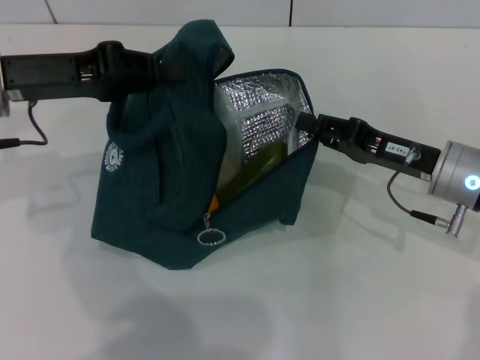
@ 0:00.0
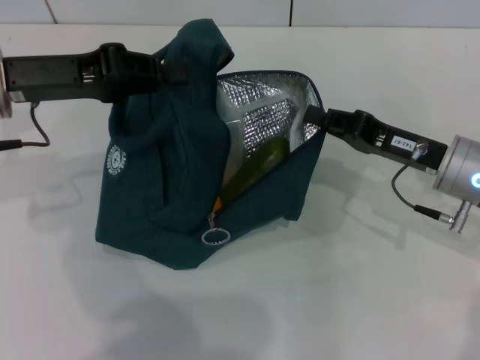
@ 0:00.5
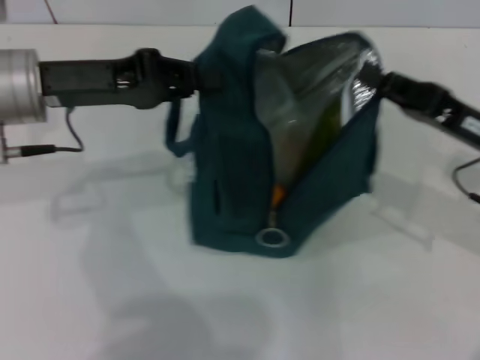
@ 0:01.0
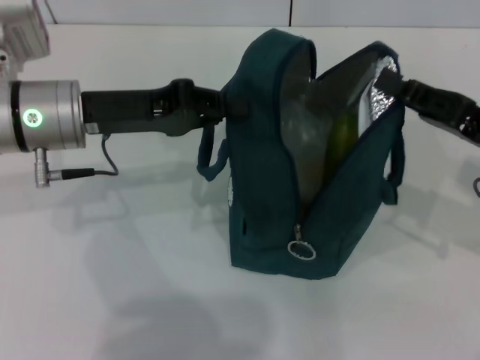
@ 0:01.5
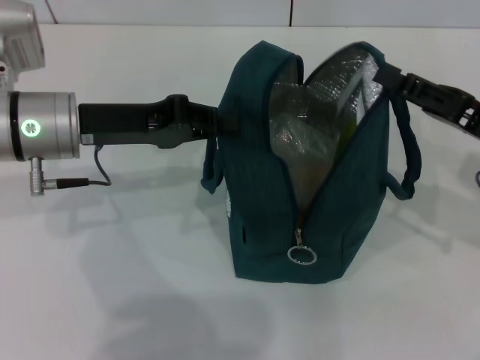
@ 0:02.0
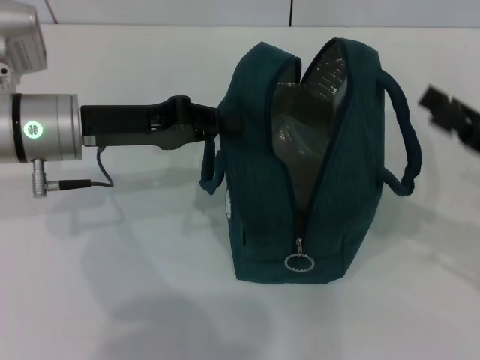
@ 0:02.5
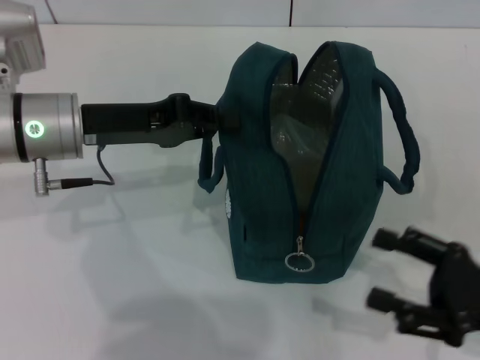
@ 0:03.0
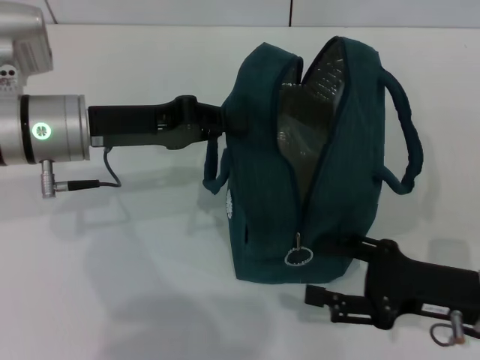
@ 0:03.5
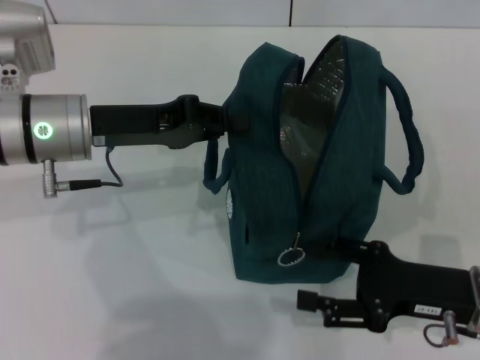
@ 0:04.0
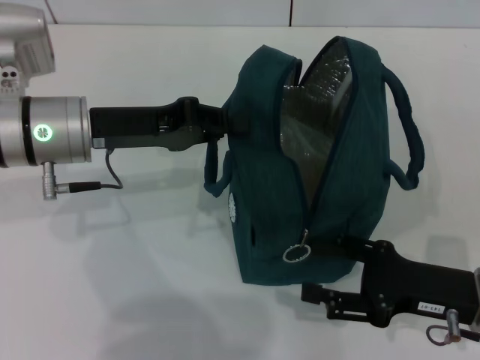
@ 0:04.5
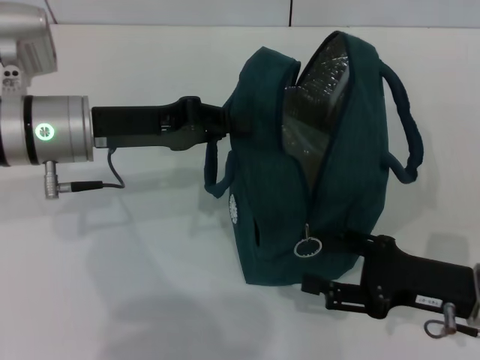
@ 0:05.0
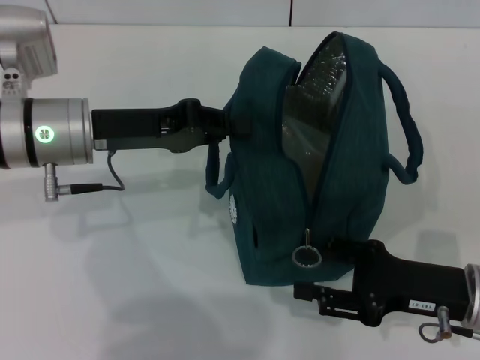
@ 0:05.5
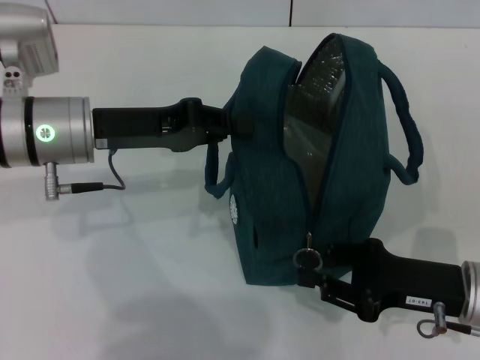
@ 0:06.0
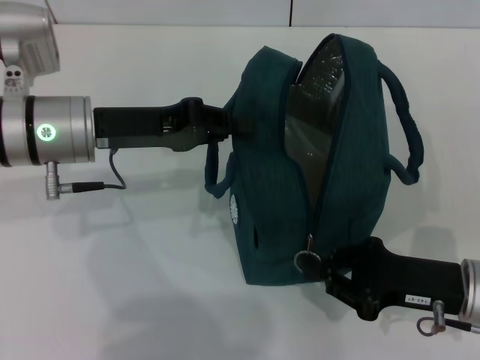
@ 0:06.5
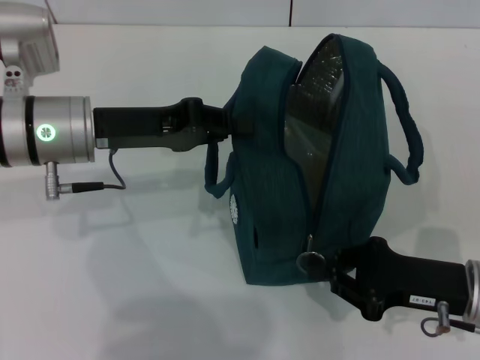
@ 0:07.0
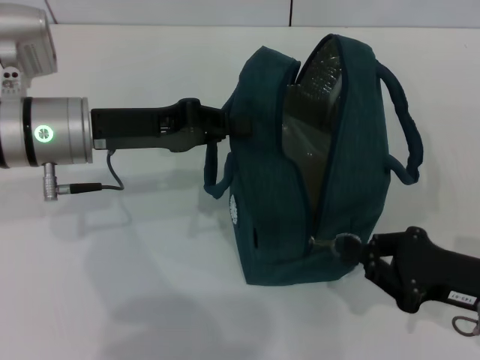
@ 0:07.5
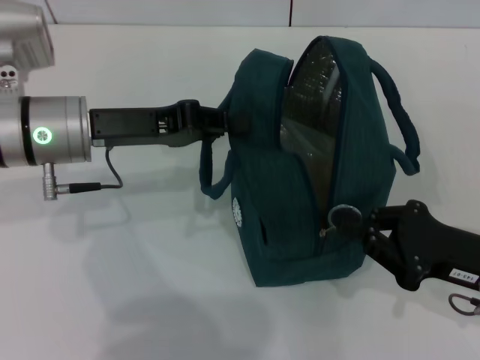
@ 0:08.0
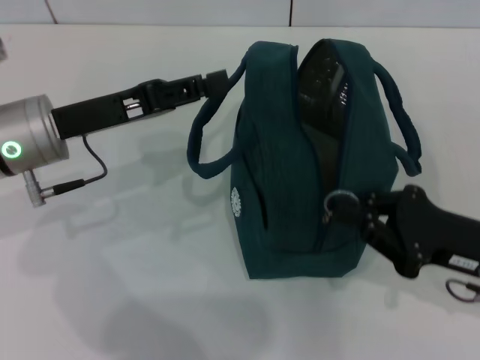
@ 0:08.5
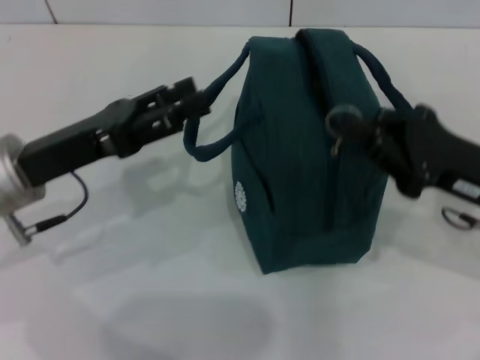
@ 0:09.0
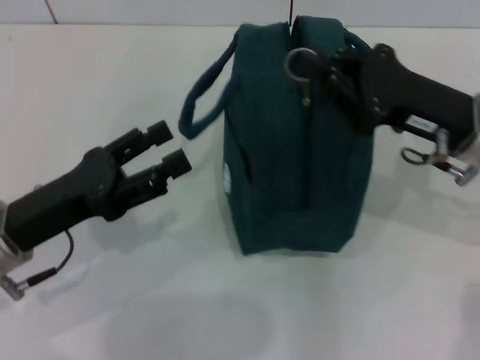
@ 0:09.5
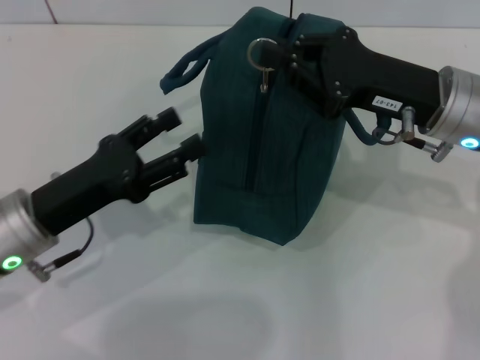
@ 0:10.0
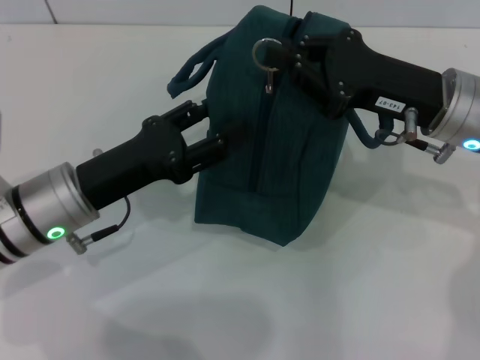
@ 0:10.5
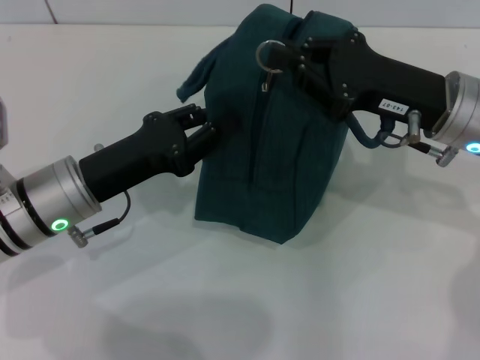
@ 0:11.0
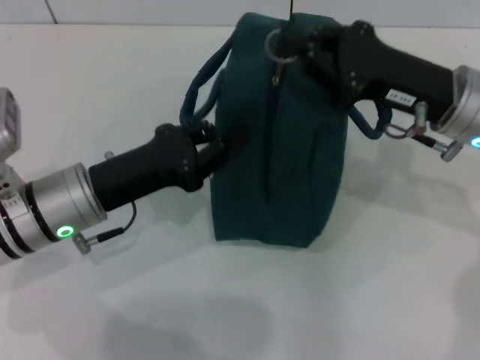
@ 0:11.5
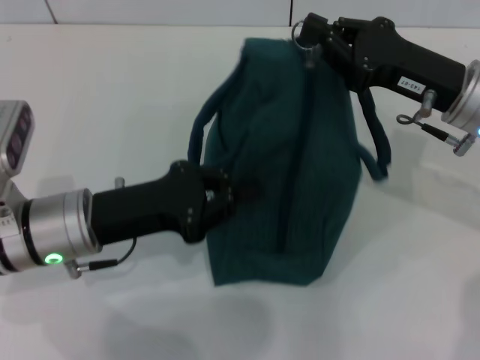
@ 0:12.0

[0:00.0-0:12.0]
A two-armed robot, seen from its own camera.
Step, 0:00.0 to 0:02.0: Hold the lunch bag with your right hand.
0:00.0 to 0:02.0: The right gripper moves to the right, about 5 cm; the left gripper moves roughly 5 cm.
0:02.0 to 0:04.0: The right gripper moves backward and downward, some 10 cm, and opens.
0:04.0 to 0:06.0: The right gripper closes its fingers.
0:06.0 to 0:08.0: The right gripper closes up.
0:08.0 to 0:10.0: The left gripper goes approximately 10 cm backward and downward, and opens its fingers. Meanwhile the right gripper goes about 15 cm forward, upward and to the left.
0:10.0 to 0:12.0: The left gripper closes.

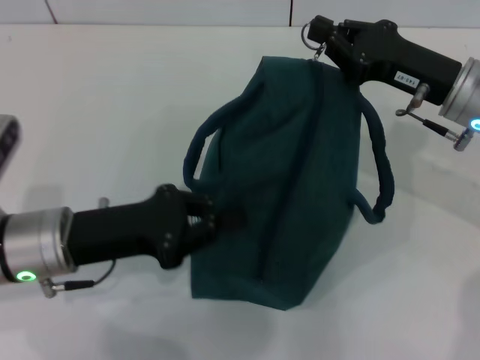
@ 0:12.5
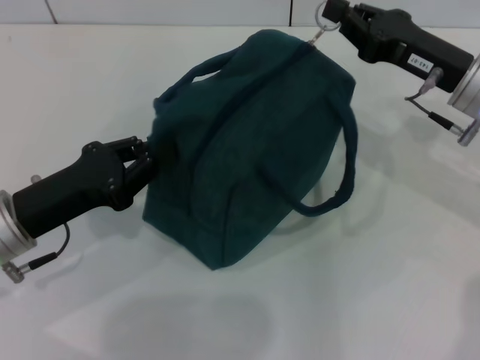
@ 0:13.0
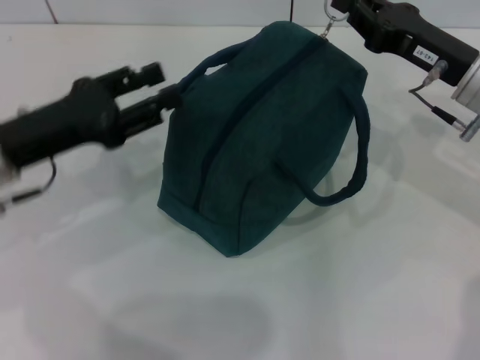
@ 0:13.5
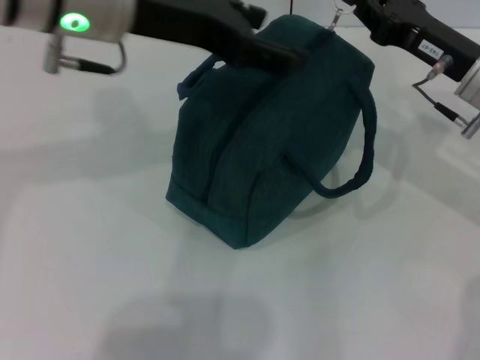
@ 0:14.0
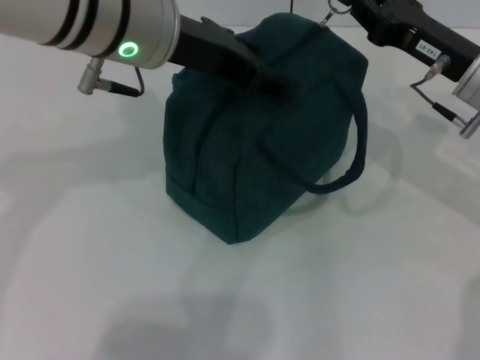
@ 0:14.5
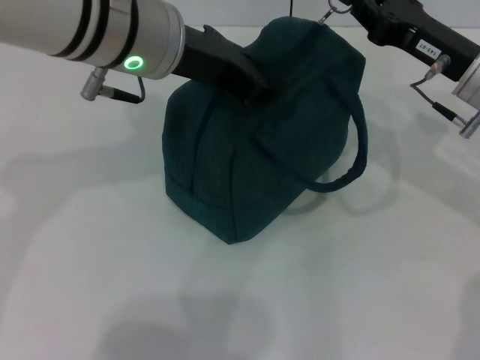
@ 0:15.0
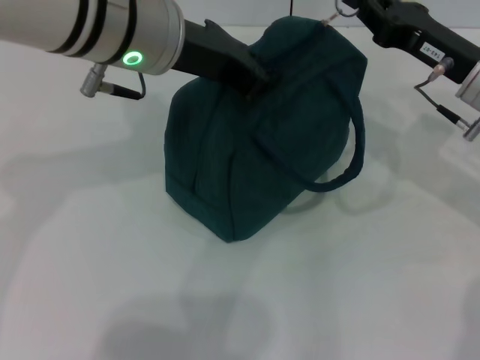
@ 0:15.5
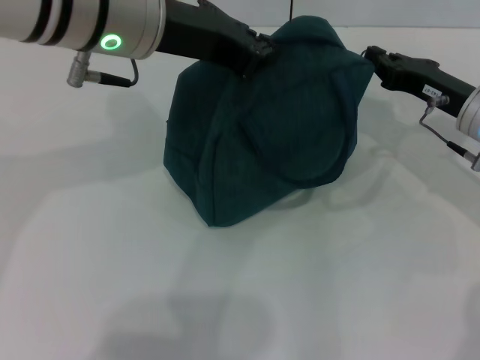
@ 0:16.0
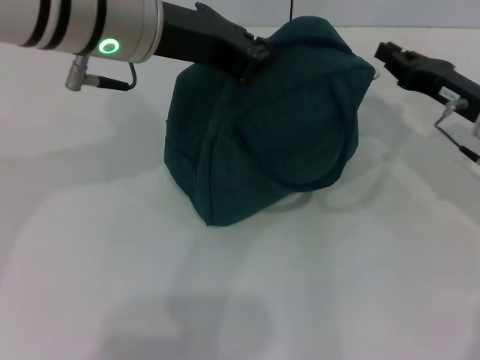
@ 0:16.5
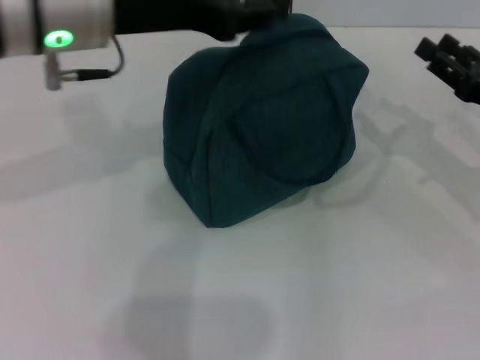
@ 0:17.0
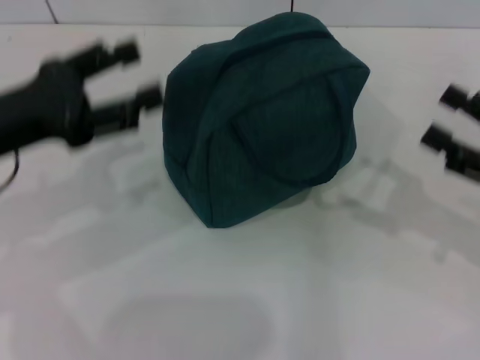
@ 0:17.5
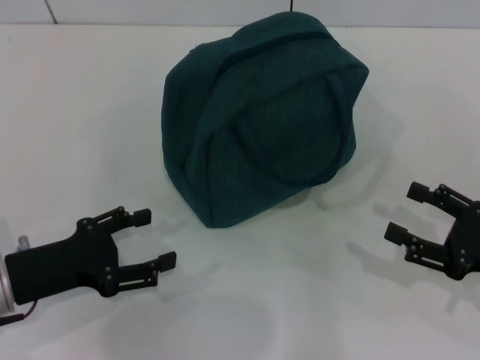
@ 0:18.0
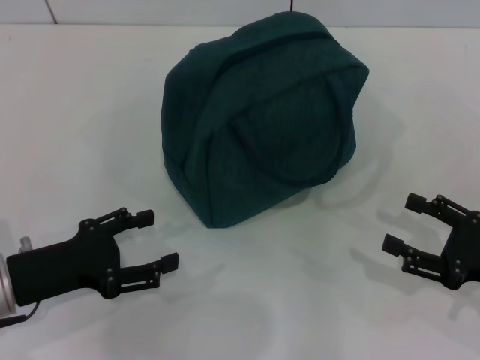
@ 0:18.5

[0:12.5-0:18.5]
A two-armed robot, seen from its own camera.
Step, 0:12.5 to 0:16.0: Zip up the lunch bag with your right hand.
0:12.5 to 0:14.5: The left gripper goes approximately 20 cm upward, to the right and forward, and opens its fingers.
0:14.5 to 0:16.5: The left gripper closes its fingers. The right gripper changes place by roughly 5 cm.
0:16.5 to 0:18.5: The right gripper is displaced backward by roughly 15 cm, and opens its fingers. Meanwhile the left gripper shifts approximately 30 cm downward, to the left and backward, and opens its fingers.
